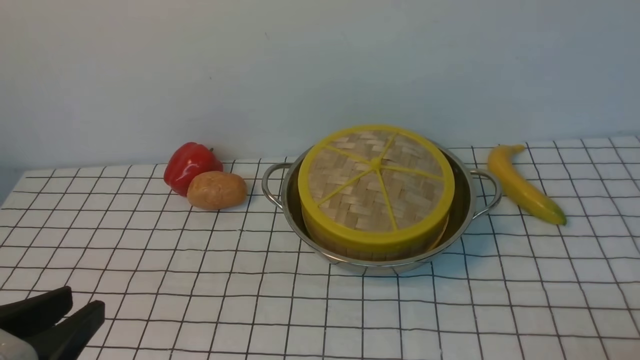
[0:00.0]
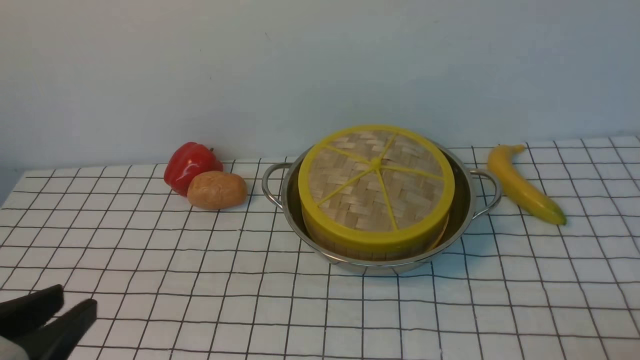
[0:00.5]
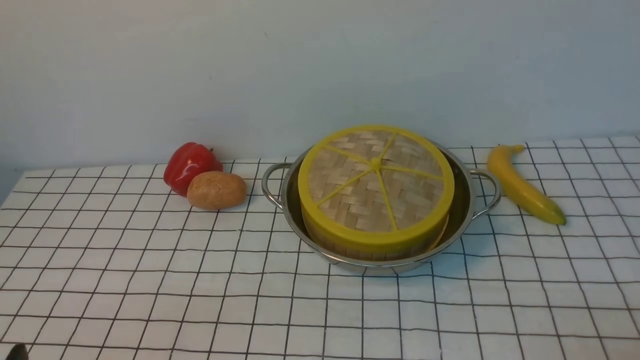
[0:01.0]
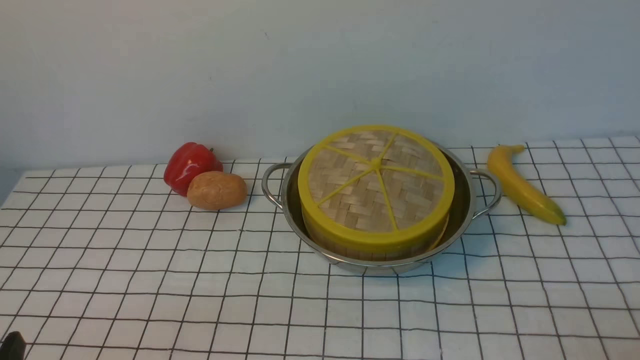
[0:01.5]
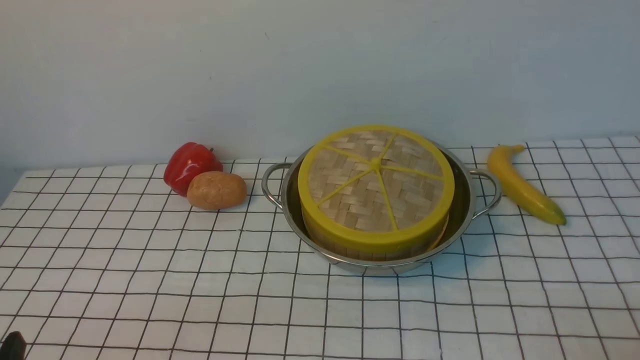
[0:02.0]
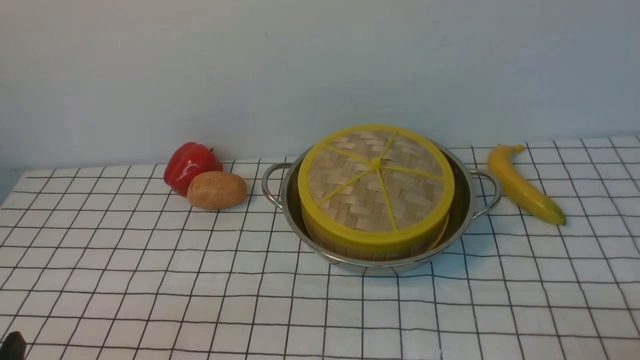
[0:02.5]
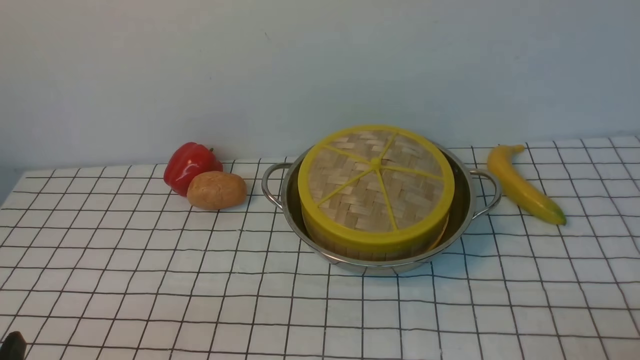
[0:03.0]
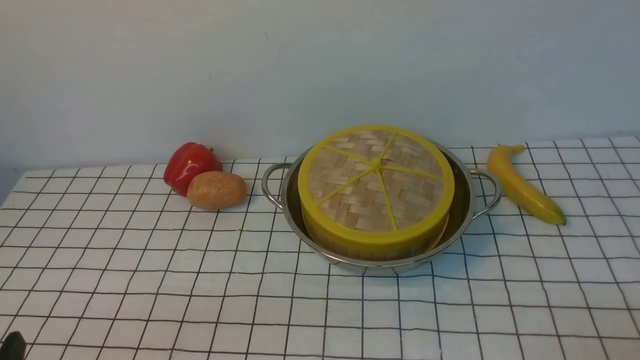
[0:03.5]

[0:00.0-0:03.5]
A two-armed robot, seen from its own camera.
Task of the whole recording: place the steamer in the pot on the white tablecloth, and put the lid on the steamer.
0:00.0 to 0:02.0: The left gripper heads downward, covering about 10 cm.
0:02.0 to 0:03.5: Both grippers stay about where they are.

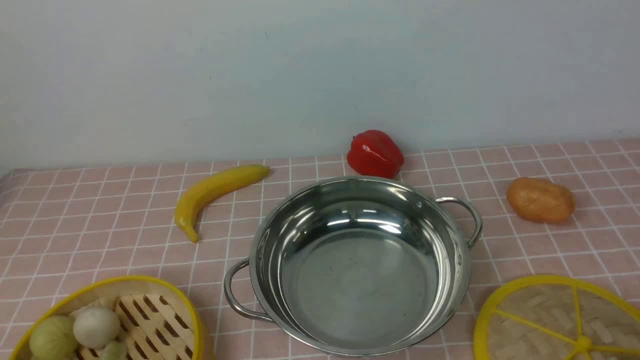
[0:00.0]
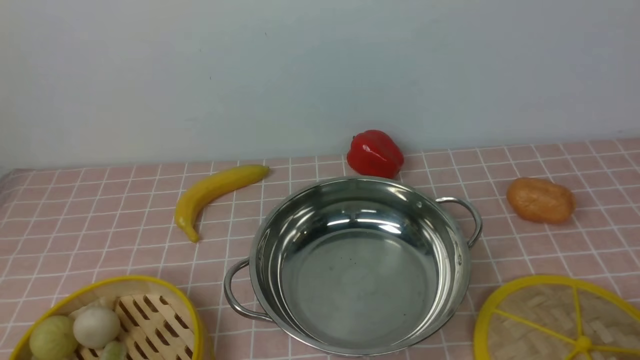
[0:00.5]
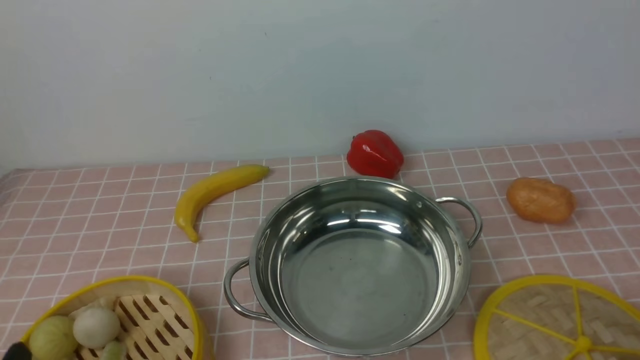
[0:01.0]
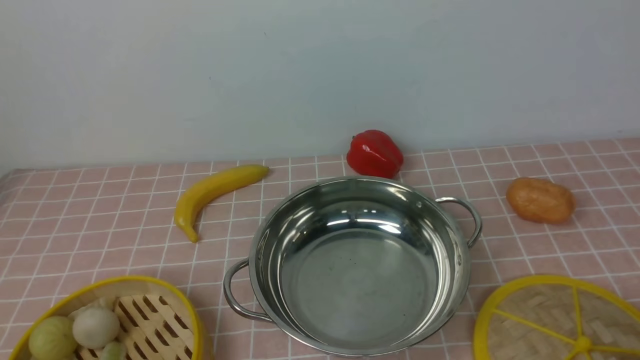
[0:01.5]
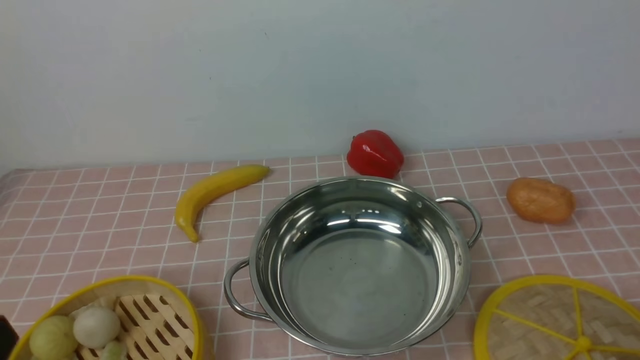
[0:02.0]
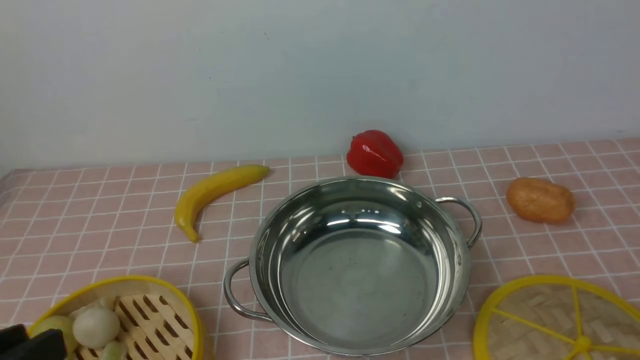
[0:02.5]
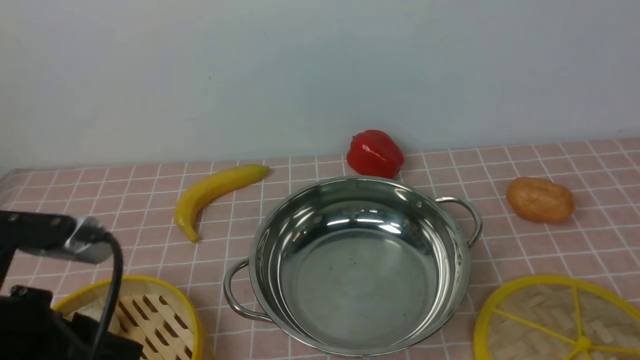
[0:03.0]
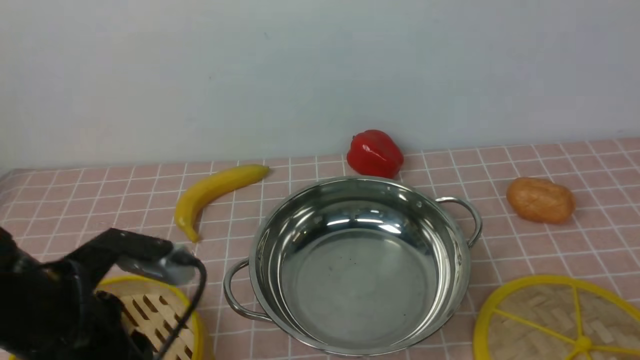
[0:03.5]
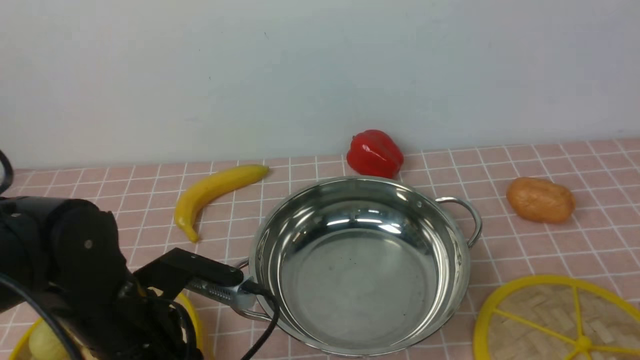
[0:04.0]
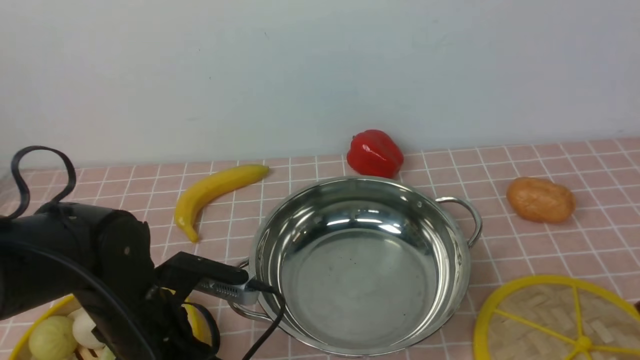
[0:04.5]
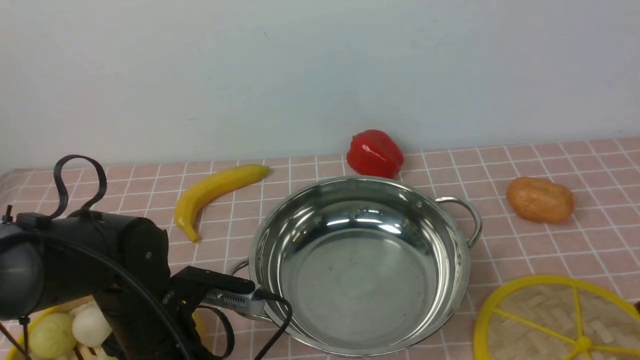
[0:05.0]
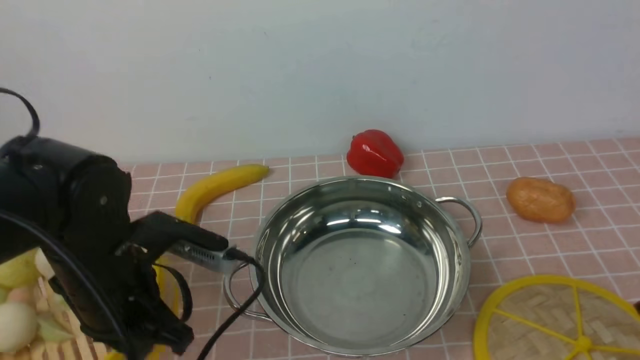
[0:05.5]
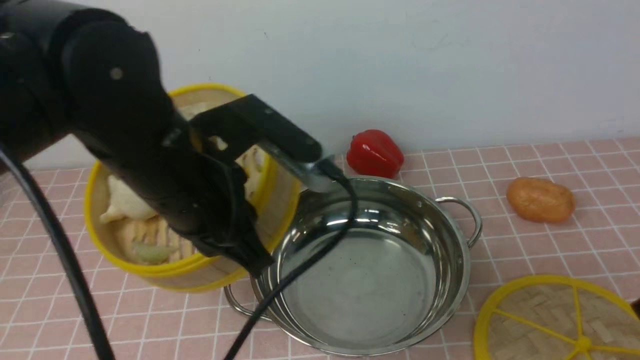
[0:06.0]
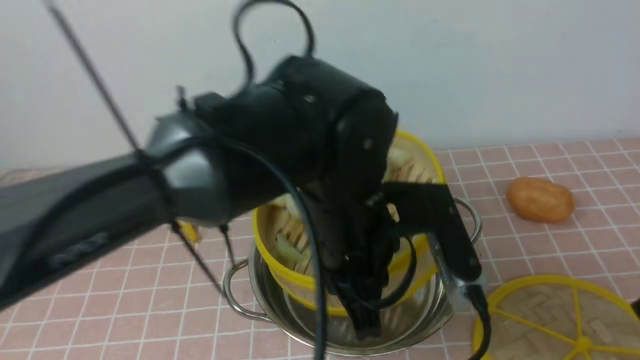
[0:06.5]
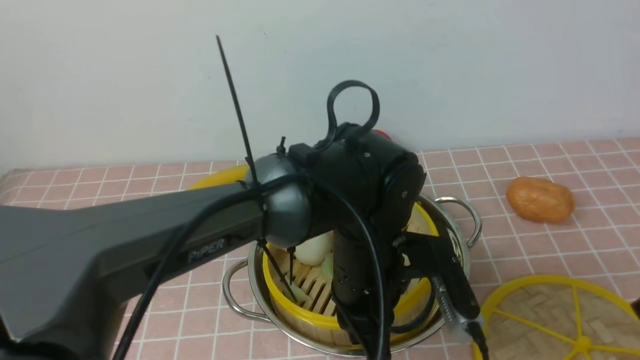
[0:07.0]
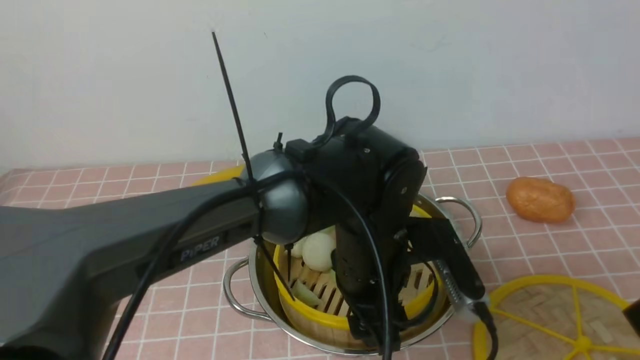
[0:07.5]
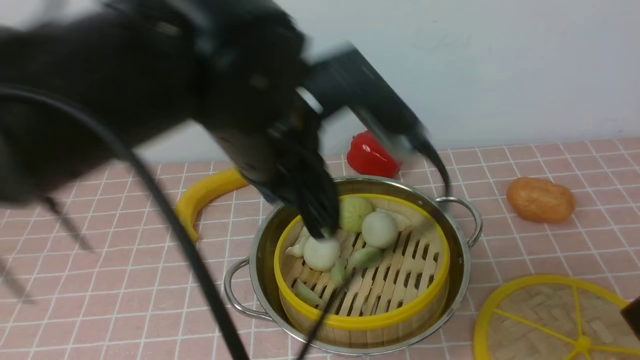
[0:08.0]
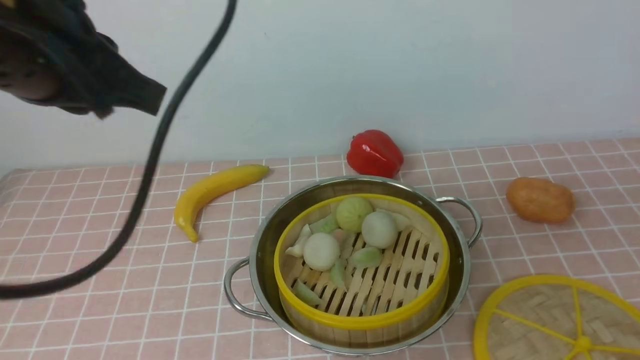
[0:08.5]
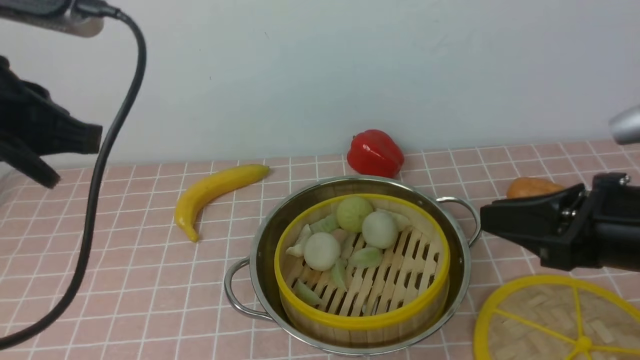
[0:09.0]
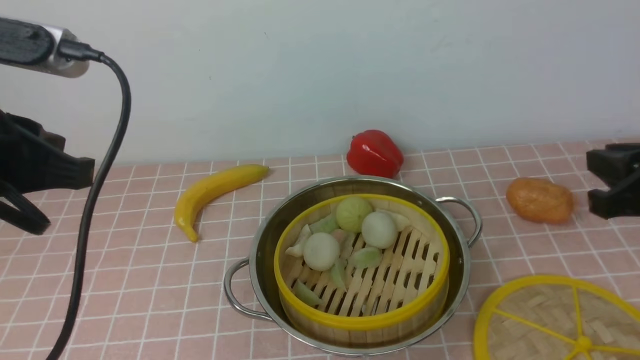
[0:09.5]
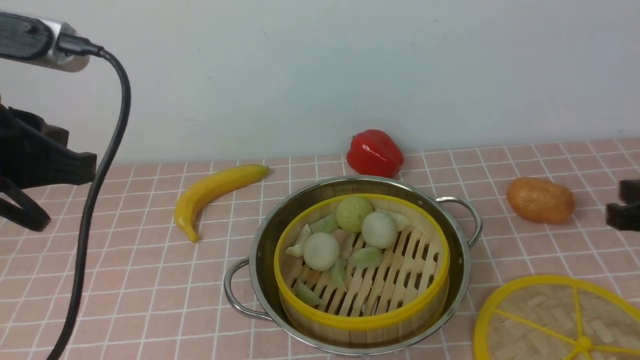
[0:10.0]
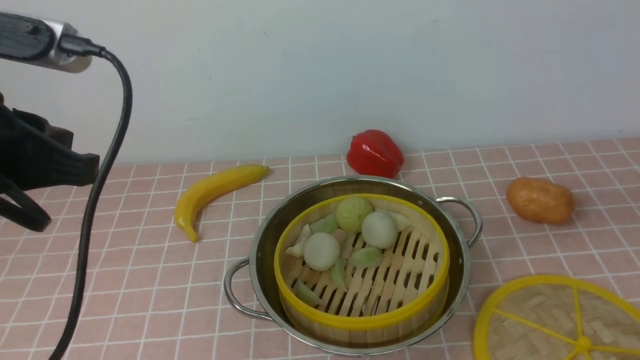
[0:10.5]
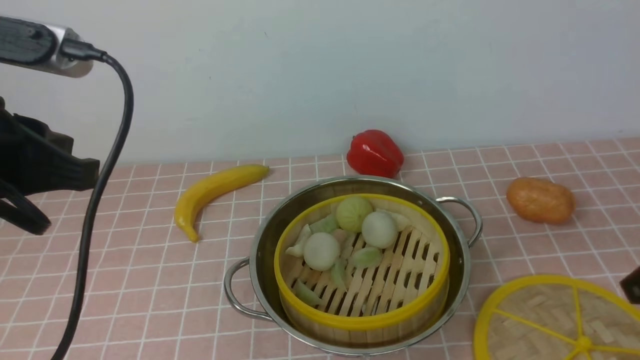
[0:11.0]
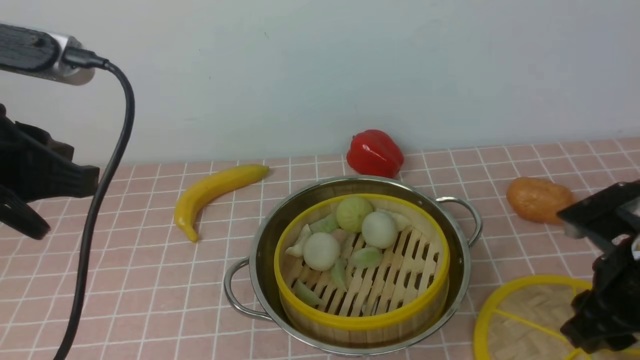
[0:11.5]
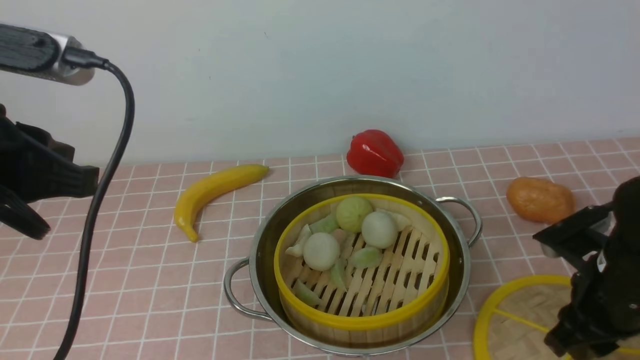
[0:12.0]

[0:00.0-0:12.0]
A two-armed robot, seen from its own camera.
Task of the whole recording: place the steamer in the pot on the pink tablecloth, and put the lid on the steamer.
Step, 0:00.0 to 0:05.0: use the left arm to lift the steamer closest to it.
Step, 0:05.5 to 0:07.5: use the left arm to put the steamer into the iron steamer pot in the middle.
0:02.0 to 0:04.0: The left gripper heads forward and downward, covering roughly 20 cm. Meanwhile the right gripper moves about 5 cm.
0:04.0 to 0:06.0: The left gripper moves upward and to the right, roughly 15 cm, and closes up.
0:06.0 to 0:08.0: The left gripper travels downward and back again, some 10 cm each way, and opens, then closes again.
0:08.0 to 0:10.0: The left gripper goes roughly 15 cm to the left, and closes up, while the right gripper heads forward, covering some 15 cm.
0:10.0 to 0:12.0: The right gripper heads downward and to the left, covering about 10 cm.

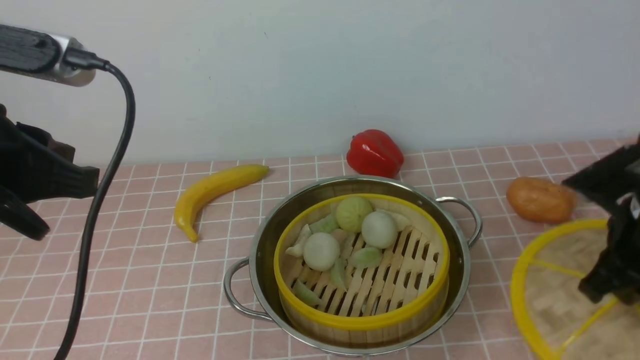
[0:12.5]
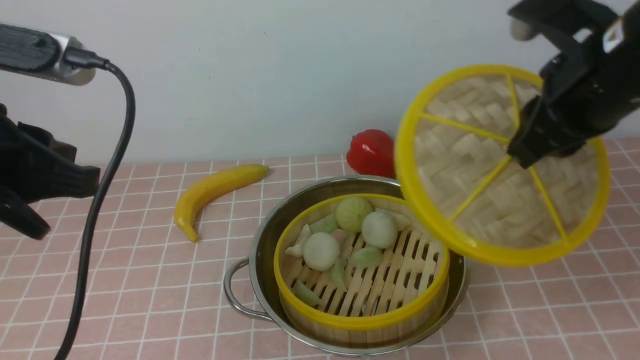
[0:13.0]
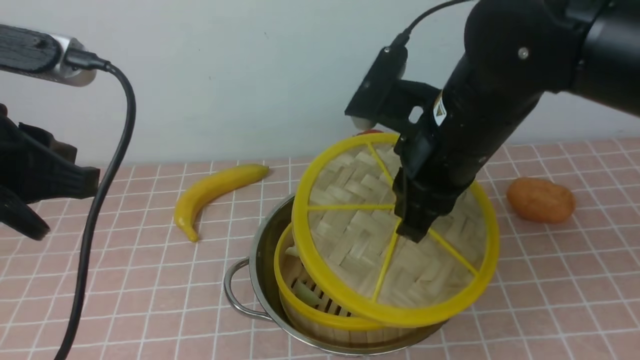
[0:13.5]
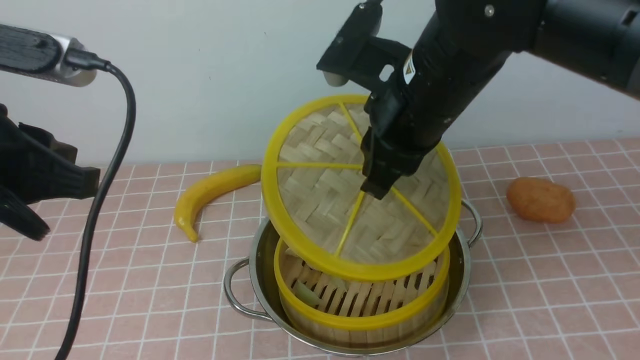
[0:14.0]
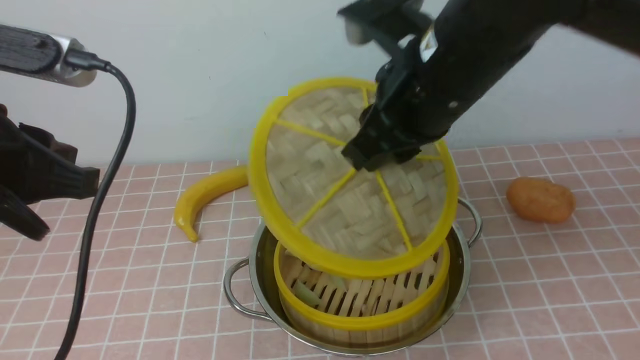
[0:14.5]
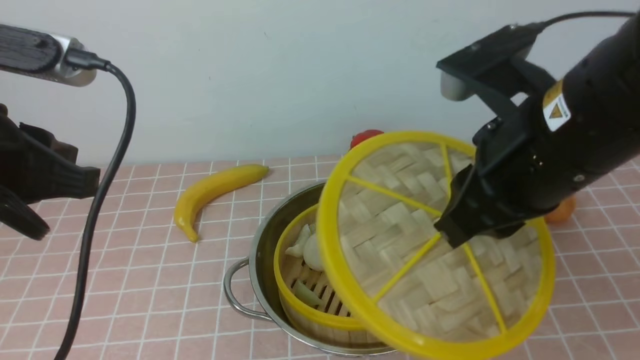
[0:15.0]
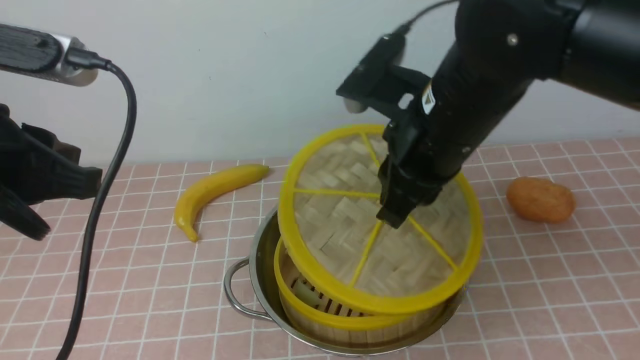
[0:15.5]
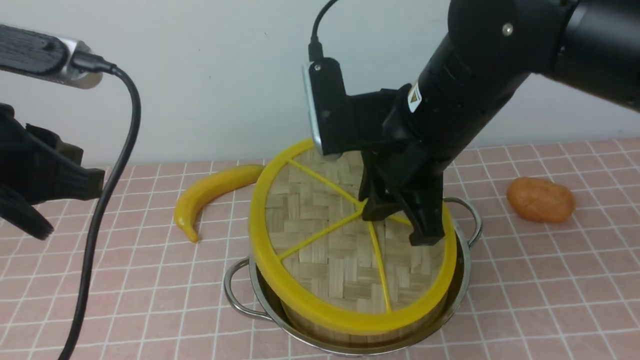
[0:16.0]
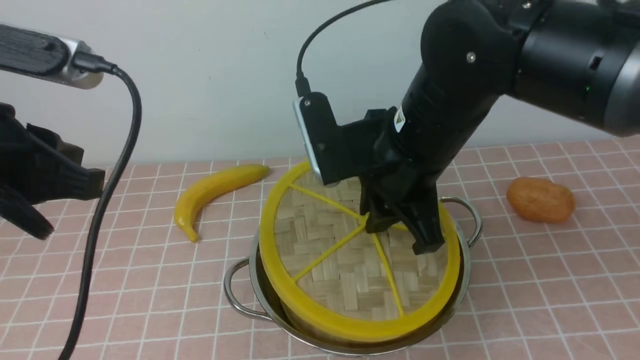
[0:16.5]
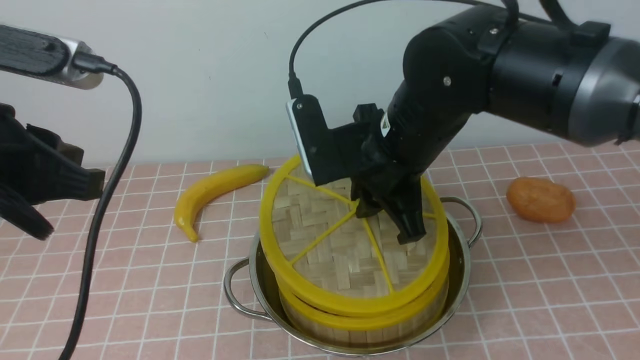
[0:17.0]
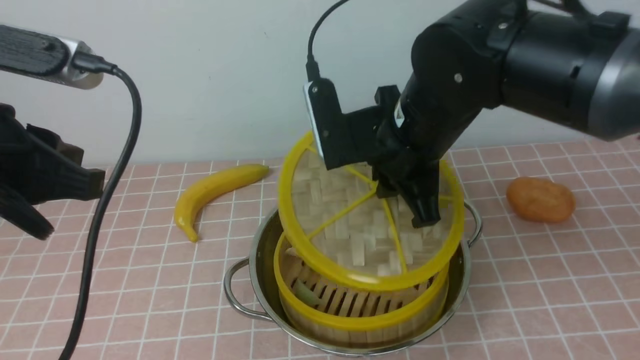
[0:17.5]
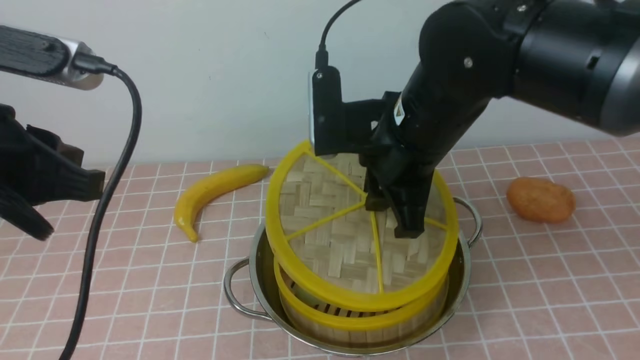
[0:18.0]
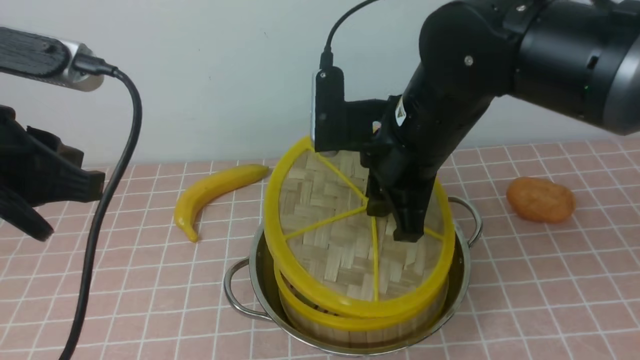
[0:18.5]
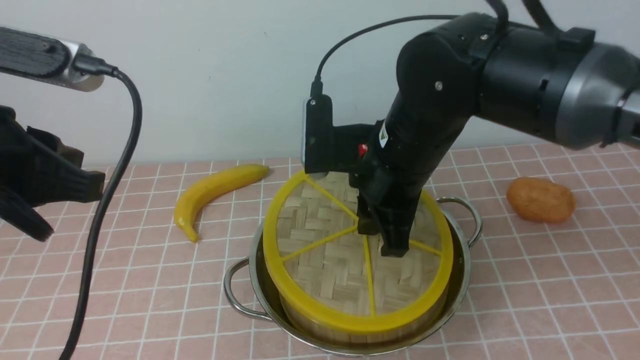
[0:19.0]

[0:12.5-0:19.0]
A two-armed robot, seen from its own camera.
Task of the whole recording: place the steamer in the pot on the pink tablecloth, and put the lid on the steamer.
0:12.5 to 0:14.5: The right gripper heads to the left and upward, covering about 20 cm.
0:14.5 to 0:17.0: The right gripper travels downward by about 10 cm.
0:17.0 to 0:19.0: The grippers stay close to where they were, moving slightly.
